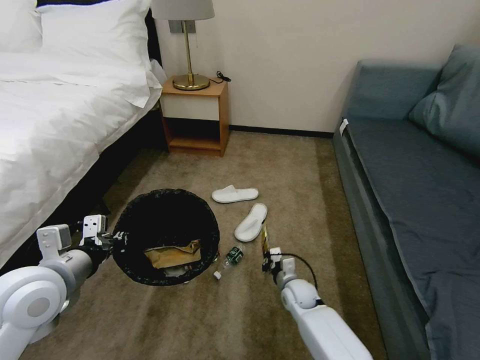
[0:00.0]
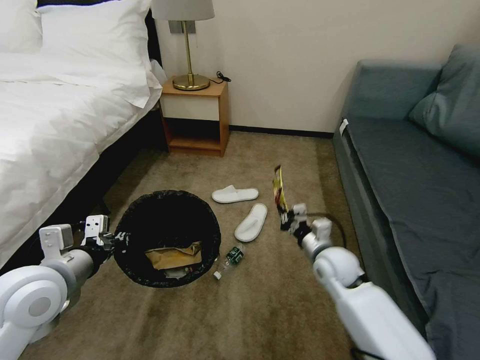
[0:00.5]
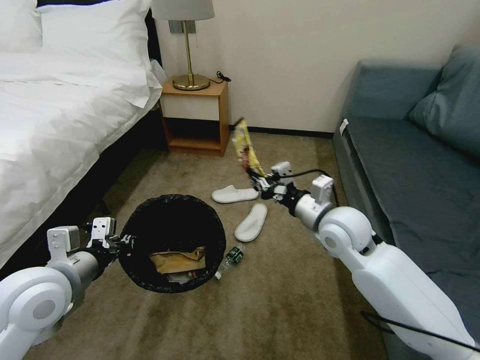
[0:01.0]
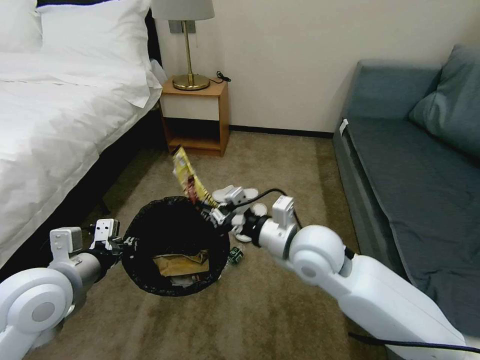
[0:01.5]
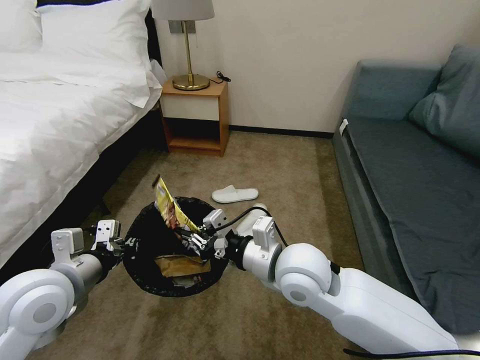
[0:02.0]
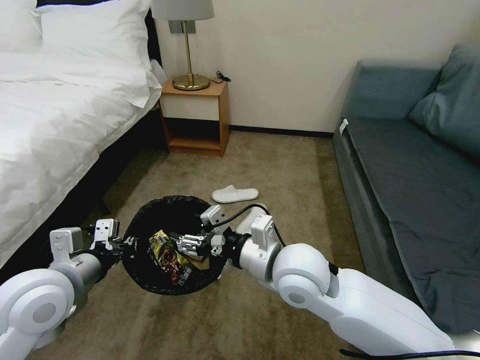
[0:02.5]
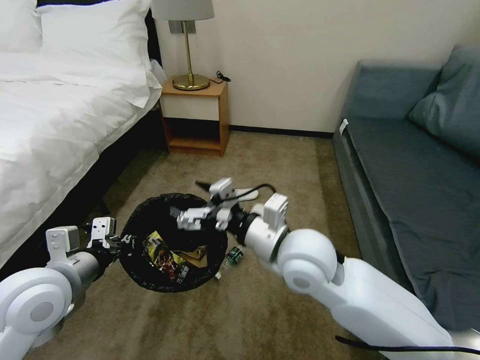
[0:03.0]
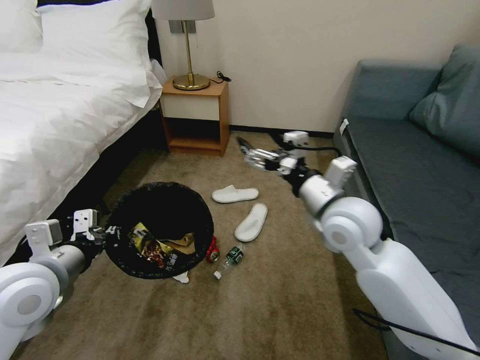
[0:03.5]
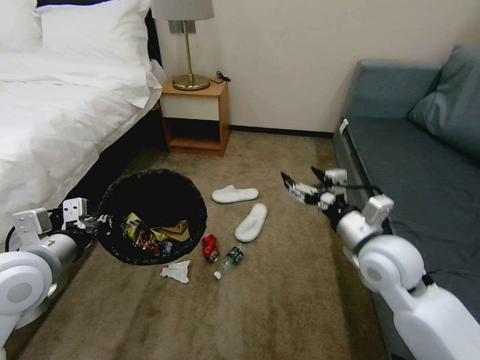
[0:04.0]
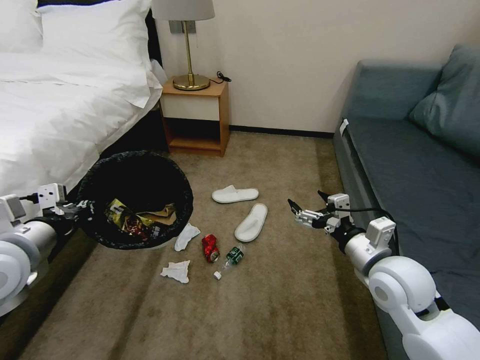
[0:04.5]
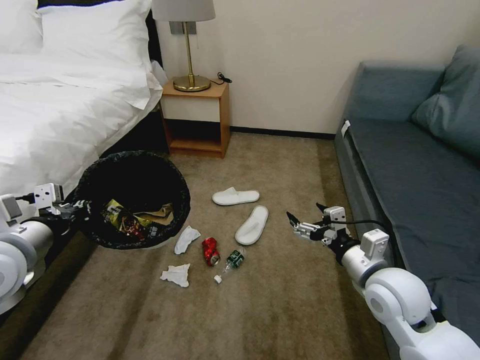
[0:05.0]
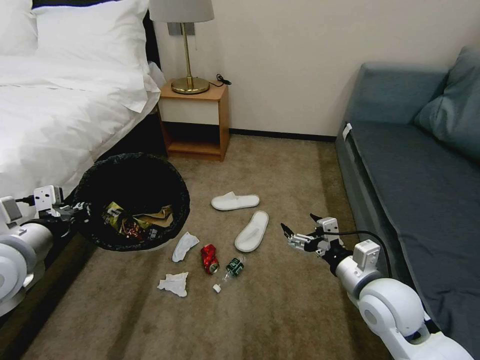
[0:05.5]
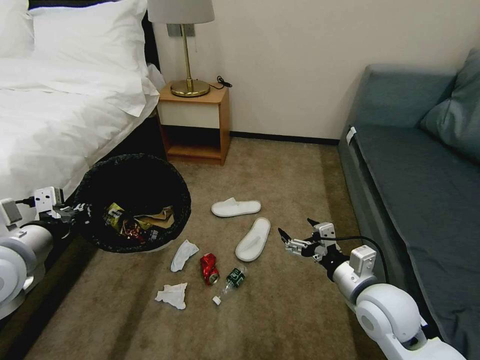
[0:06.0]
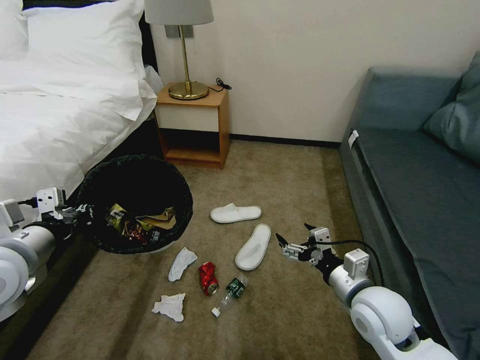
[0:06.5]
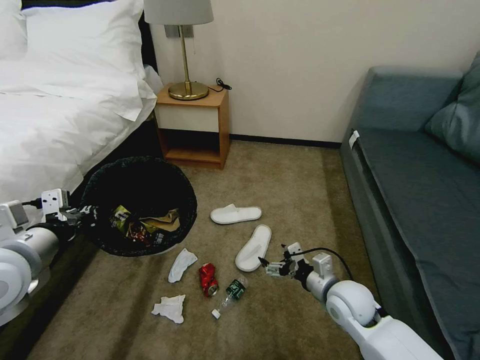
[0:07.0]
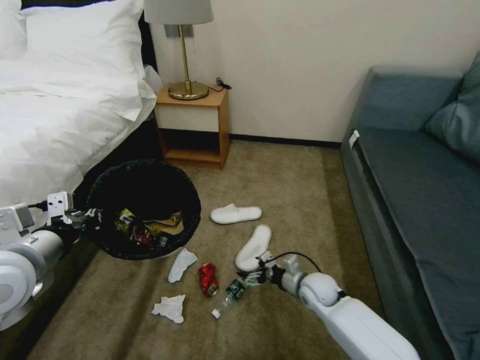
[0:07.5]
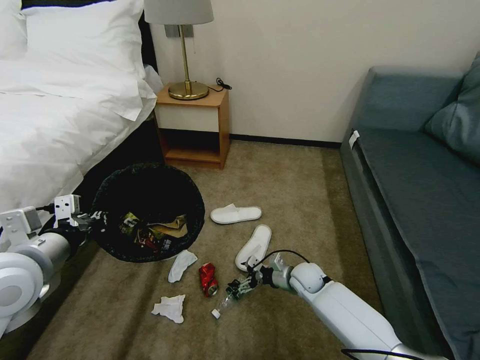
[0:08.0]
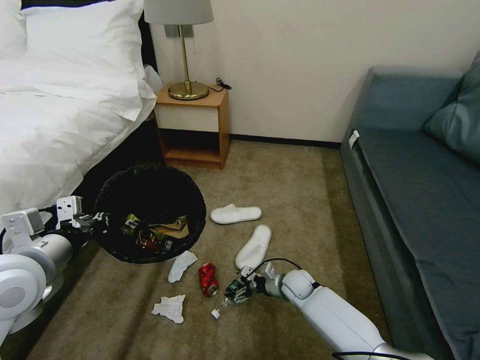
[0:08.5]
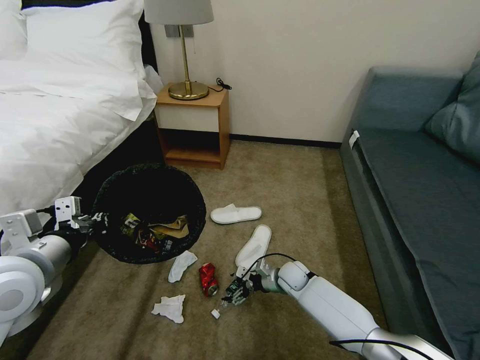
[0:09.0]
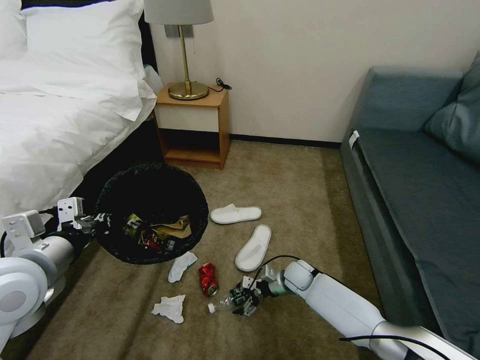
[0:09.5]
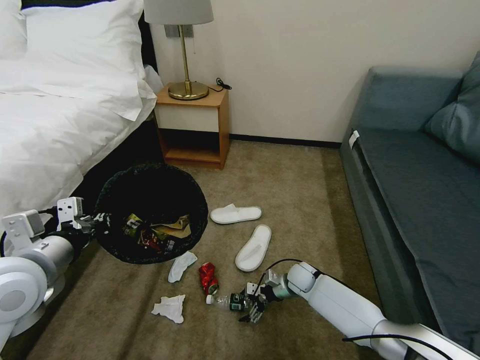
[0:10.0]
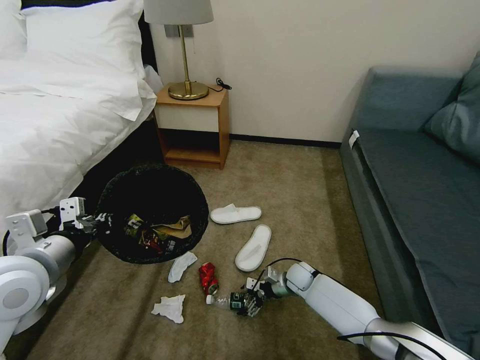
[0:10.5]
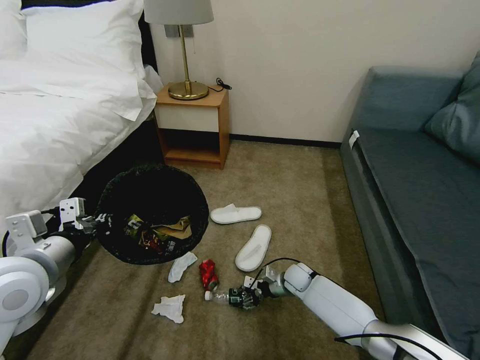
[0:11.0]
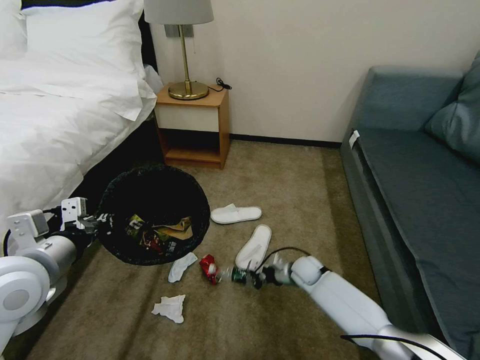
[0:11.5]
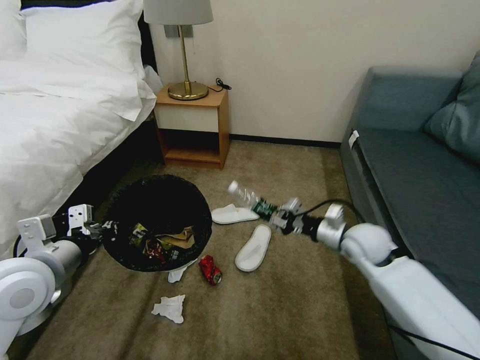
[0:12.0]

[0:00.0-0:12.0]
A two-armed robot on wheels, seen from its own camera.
Task of the whole recording: Pick up the trash bin, then pick up the garbage on the floor and place it into the trash bin.
0:00.0 to 0:02.0: The right gripper travels upward by approximately 30 cm.
0:02.0 to 0:04.0: The right gripper travels to the right by approximately 15 cm, and opens up.
0:04.0 to 0:06.0: The right gripper goes approximately 10 cm downward and backward.
0:06.0 to 0:08.0: The right gripper shifts about 25 cm downward and forward.
0:10.0 to 0:12.0: The right gripper travels upward by some 20 cm, and closes its fingers.

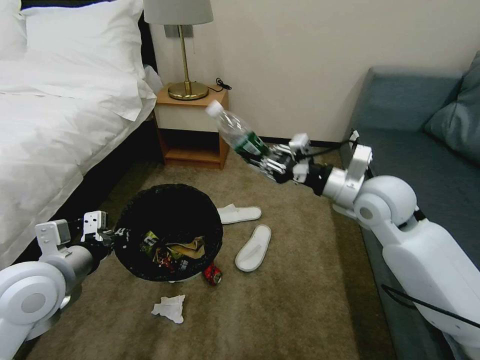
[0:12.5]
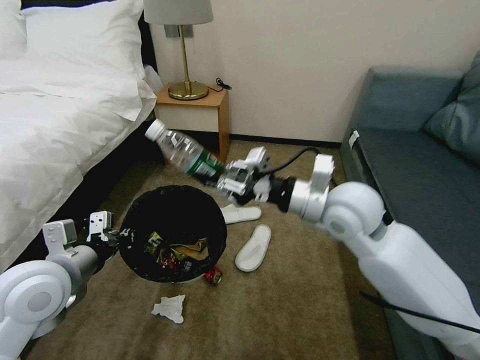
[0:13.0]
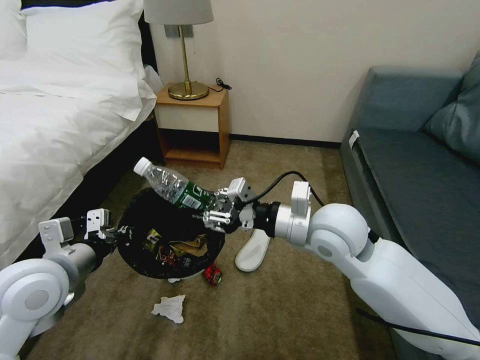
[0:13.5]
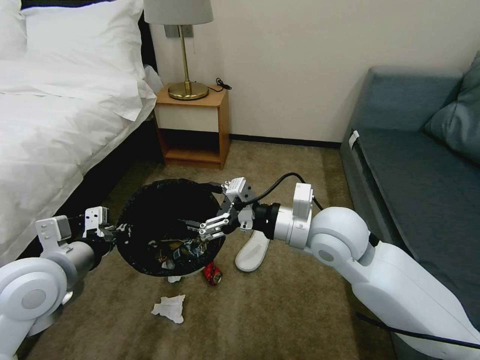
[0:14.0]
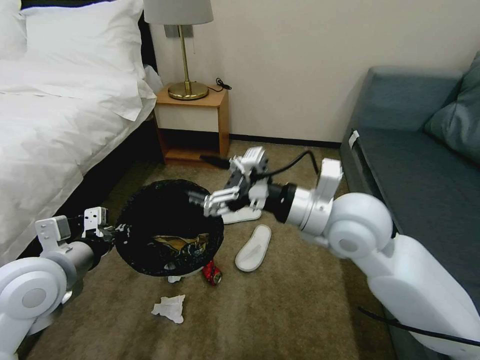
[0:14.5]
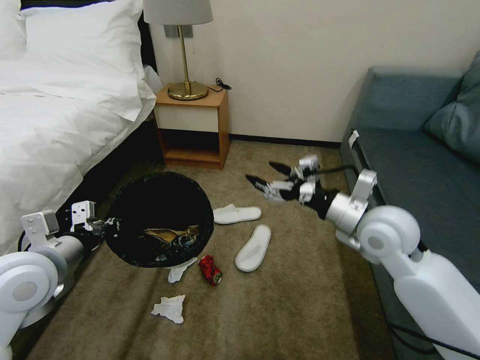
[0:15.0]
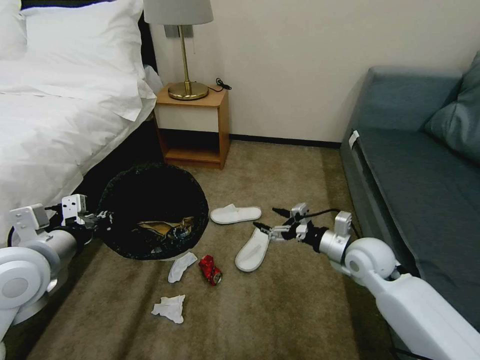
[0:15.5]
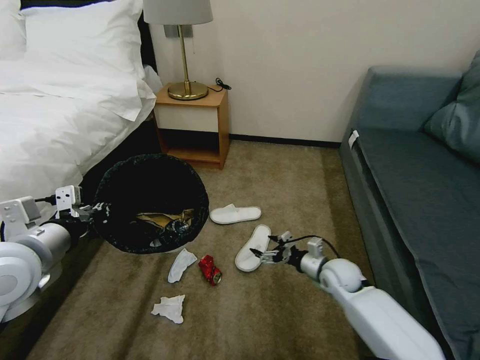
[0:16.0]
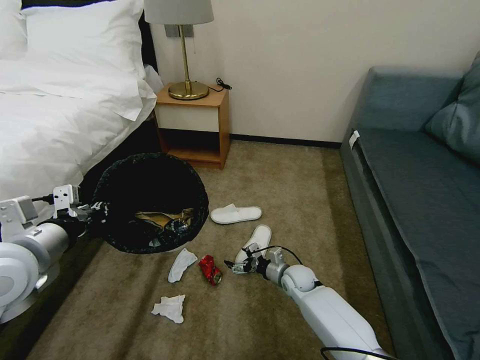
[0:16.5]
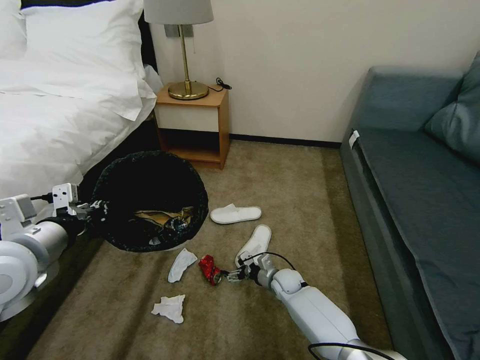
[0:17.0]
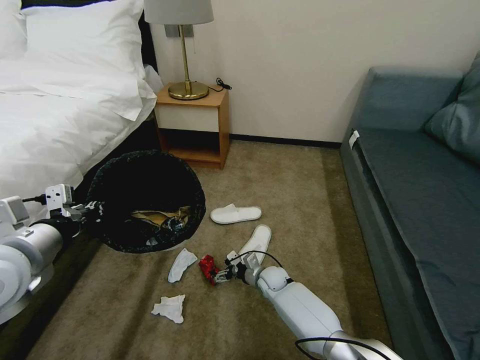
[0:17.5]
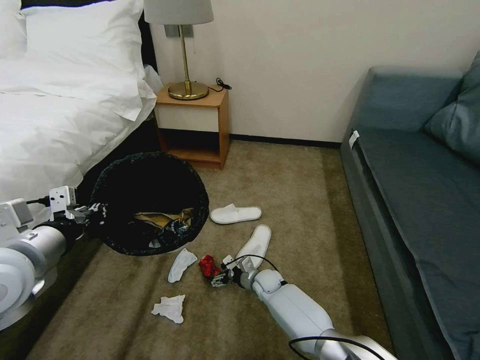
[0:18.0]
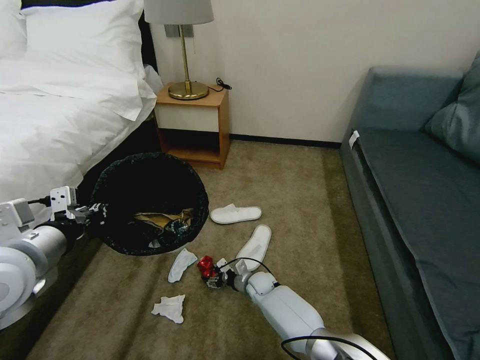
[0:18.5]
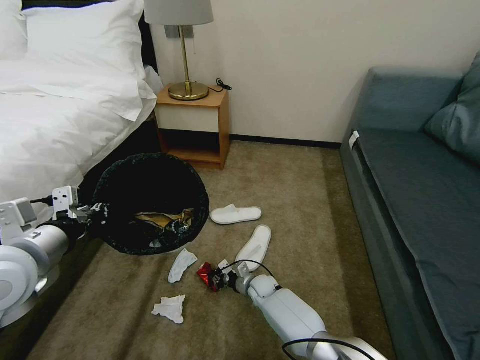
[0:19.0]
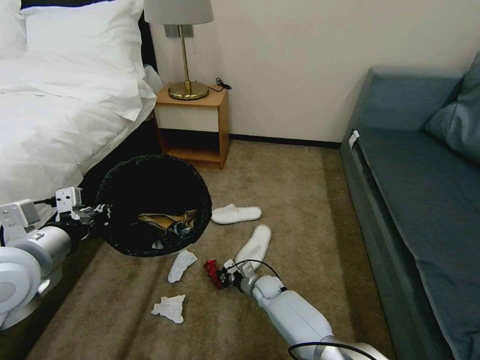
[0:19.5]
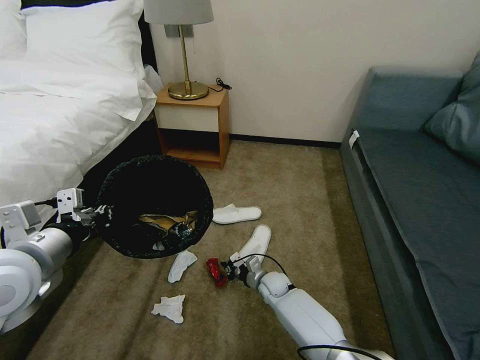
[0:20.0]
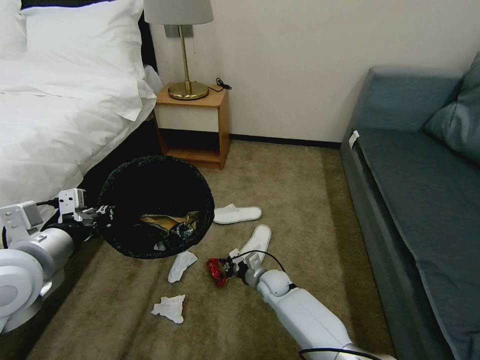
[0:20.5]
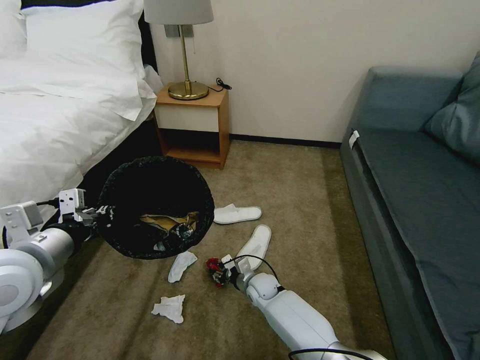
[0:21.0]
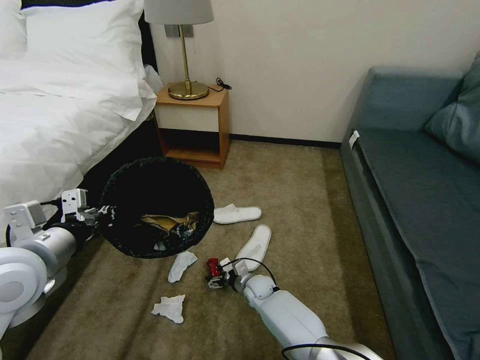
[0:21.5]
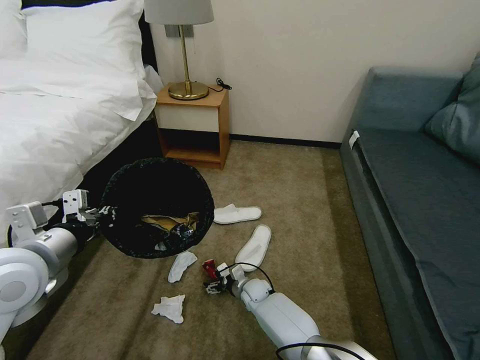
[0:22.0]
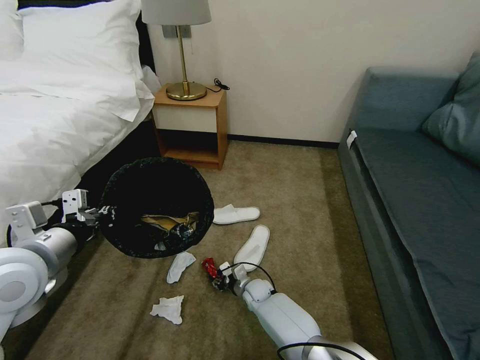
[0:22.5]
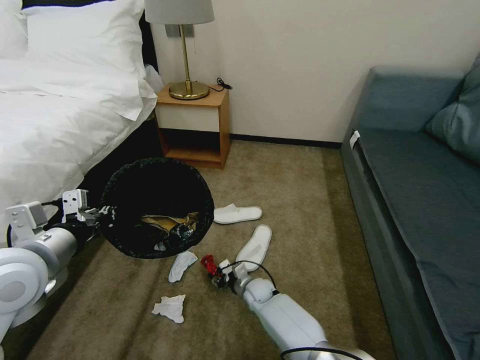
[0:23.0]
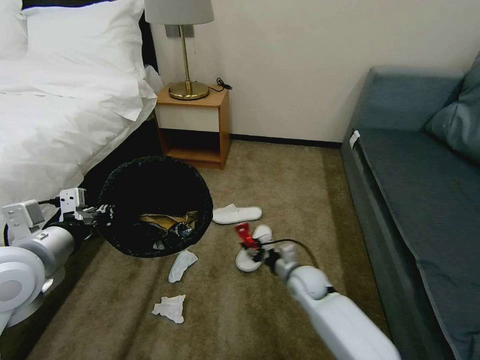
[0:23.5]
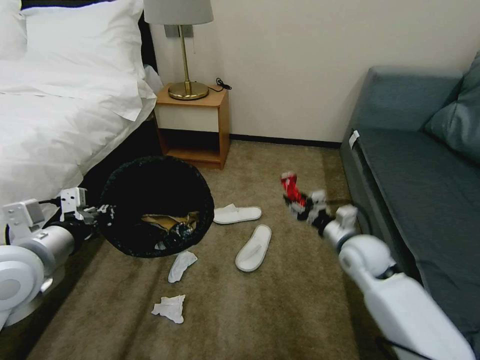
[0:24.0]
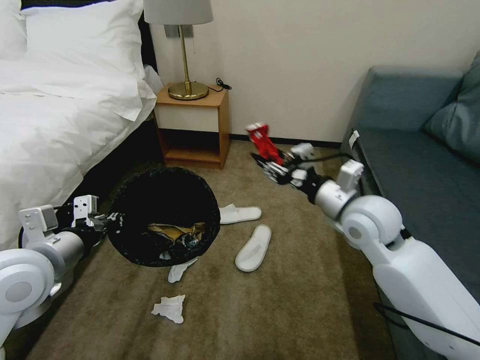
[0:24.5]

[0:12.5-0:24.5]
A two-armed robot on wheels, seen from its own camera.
Task of the whole recording: Pick up the trash bin, then pick up the garbage on the floor and place it into the trash bin.
0:12.5 to 0:14.5: The right gripper heads to the left and backward, covering some 10 cm, and opens its fingers.
0:14.5 to 0:16.5: The right gripper shifts approximately 40 cm downward.
0:16.5 to 0:18.5: The right gripper goes about 10 cm to the left and downward, and closes up.
0:18.5 to 0:20.5: The right gripper changes place by some 5 cm, and closes.
0:20.5 to 0:22.5: The right gripper moves downward and to the left, roughly 10 cm, and opens its fingers.
0:22.5 to 0:24.5: The right gripper travels upward and to the right by approximately 50 cm.

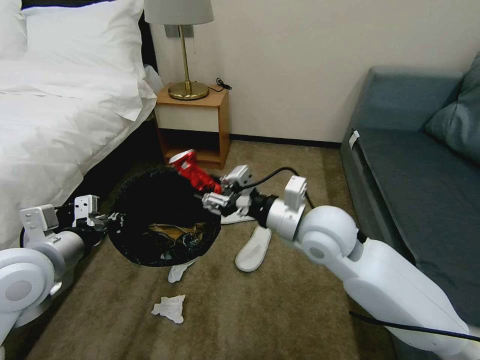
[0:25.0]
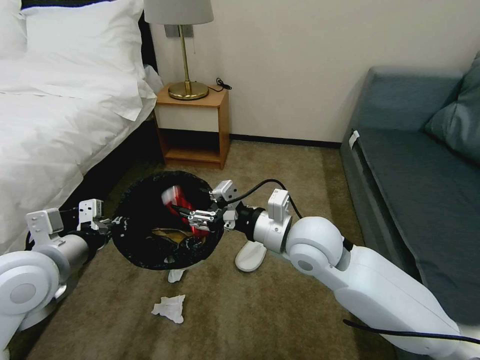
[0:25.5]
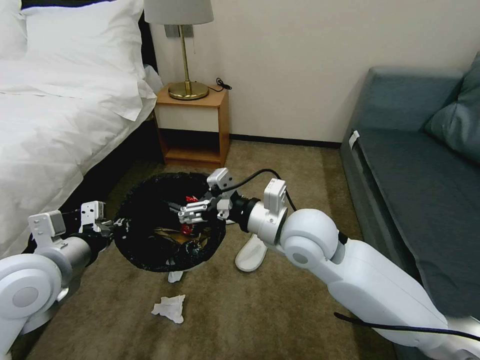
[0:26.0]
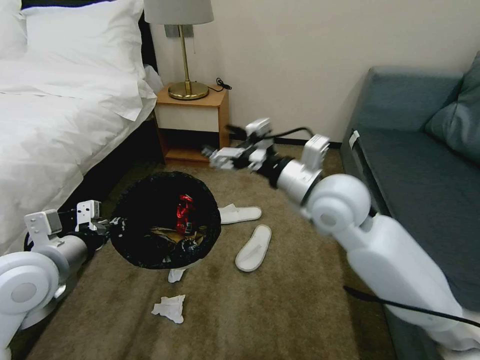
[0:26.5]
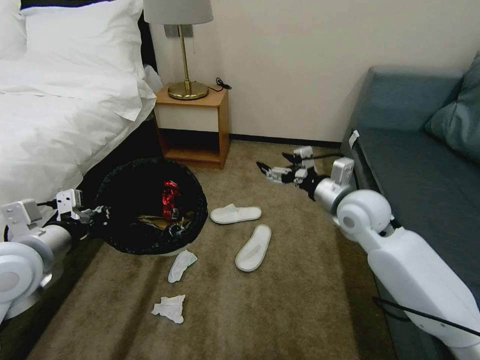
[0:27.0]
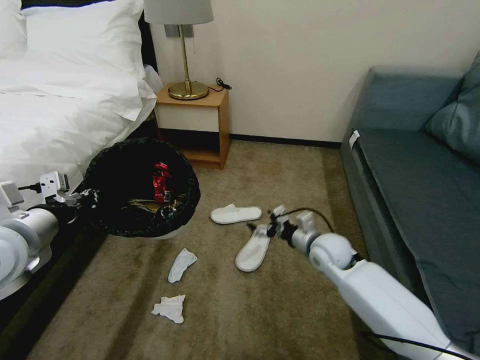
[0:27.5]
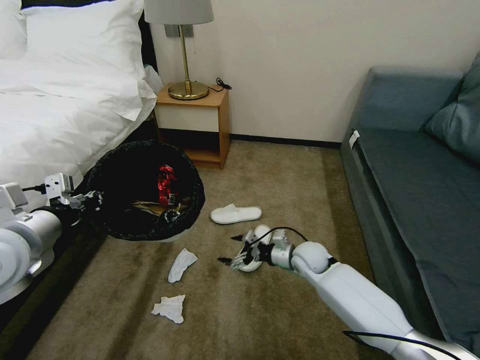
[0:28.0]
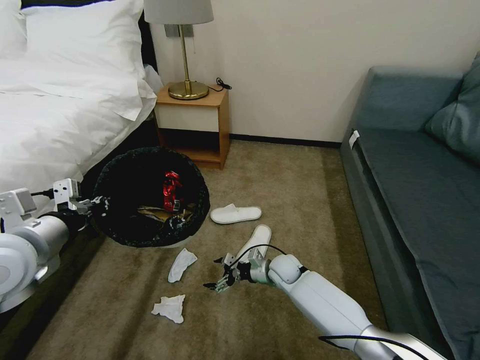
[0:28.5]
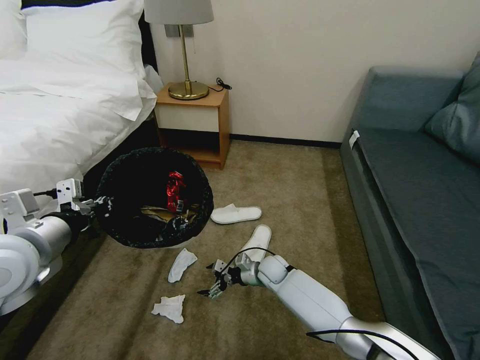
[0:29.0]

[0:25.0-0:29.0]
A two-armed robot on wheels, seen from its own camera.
Task of the whole recording: Pick up the trash bin, then pick up the garbage on the floor and place it into the trash bin.
0:25.0 to 0:27.0: The right gripper shifts some 15 cm to the right and forward, and opens.
0:27.0 to 0:29.0: The right gripper is displaced downward and to the left by some 35 cm.
